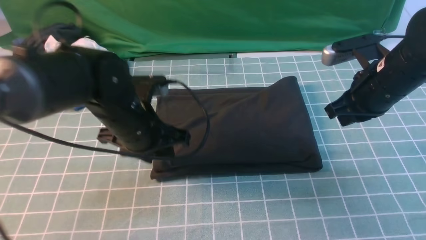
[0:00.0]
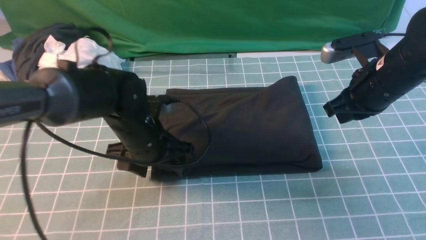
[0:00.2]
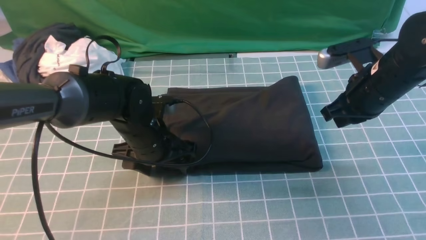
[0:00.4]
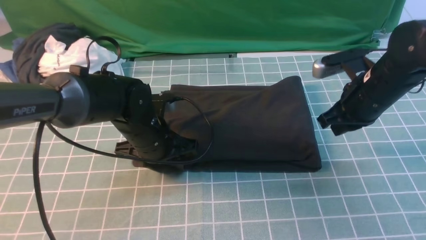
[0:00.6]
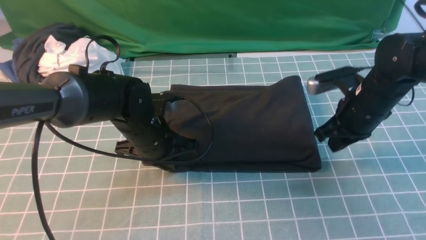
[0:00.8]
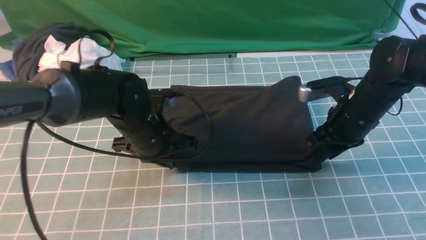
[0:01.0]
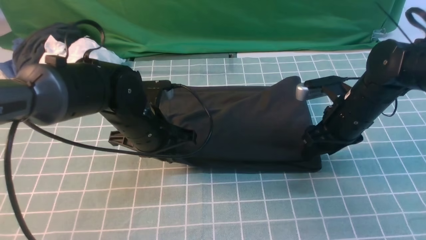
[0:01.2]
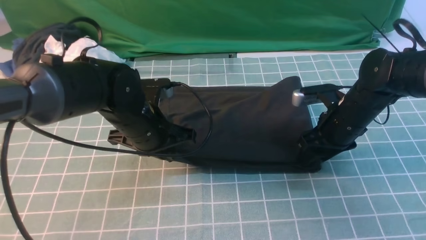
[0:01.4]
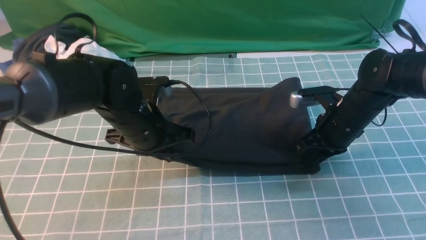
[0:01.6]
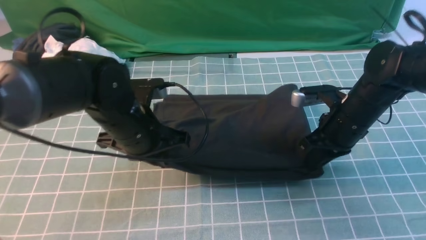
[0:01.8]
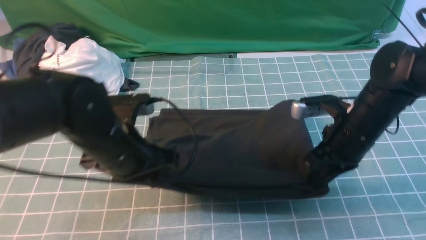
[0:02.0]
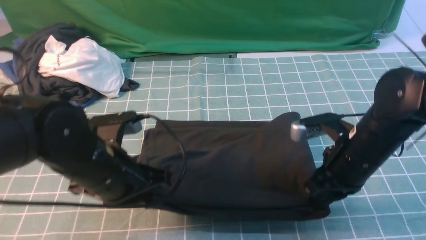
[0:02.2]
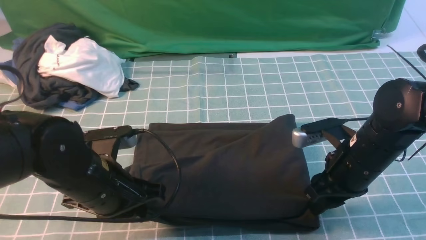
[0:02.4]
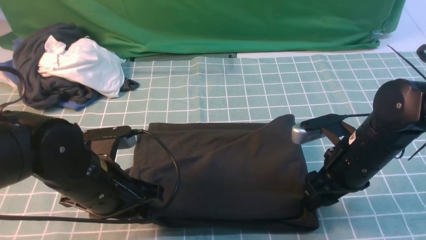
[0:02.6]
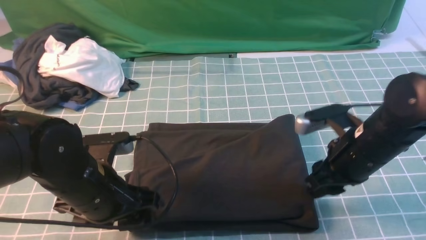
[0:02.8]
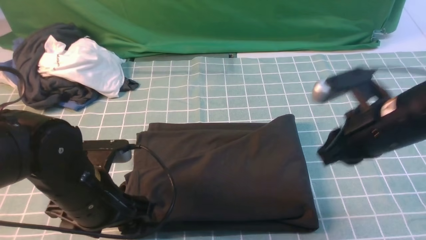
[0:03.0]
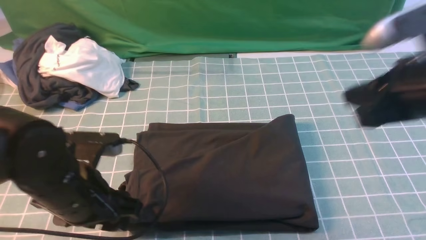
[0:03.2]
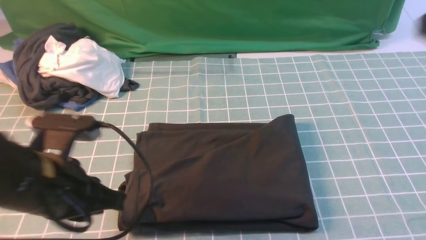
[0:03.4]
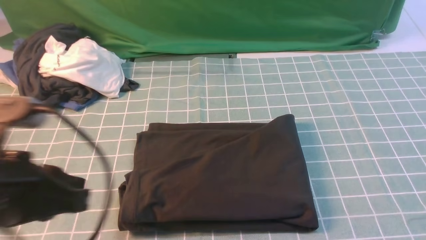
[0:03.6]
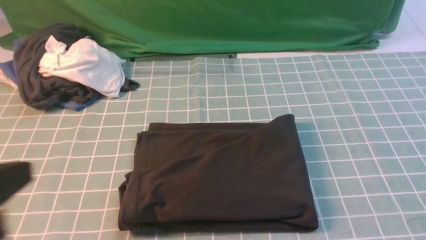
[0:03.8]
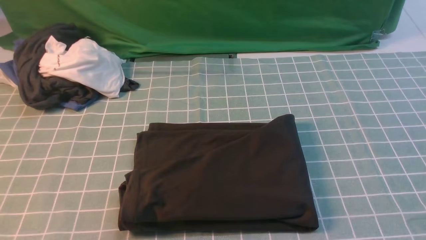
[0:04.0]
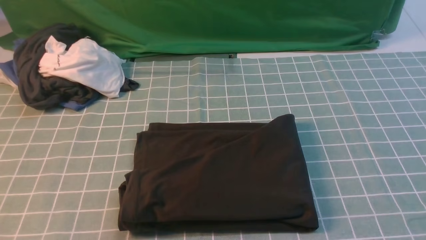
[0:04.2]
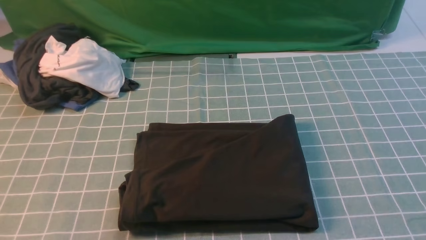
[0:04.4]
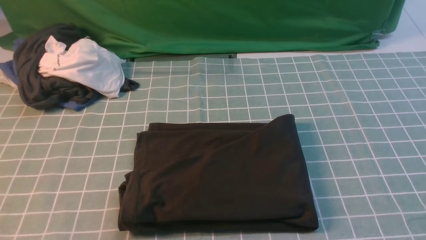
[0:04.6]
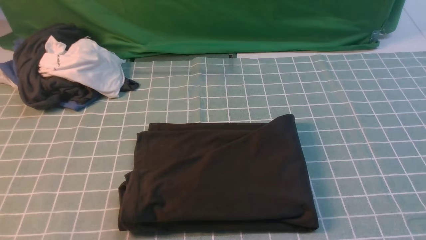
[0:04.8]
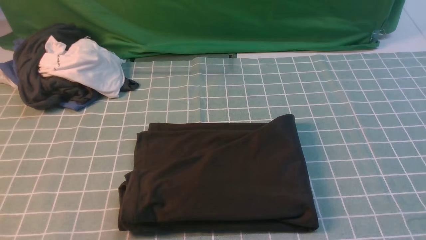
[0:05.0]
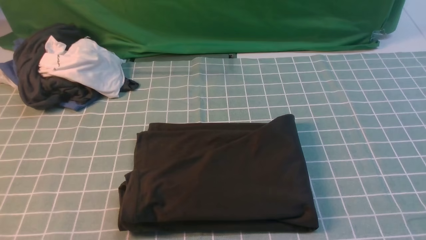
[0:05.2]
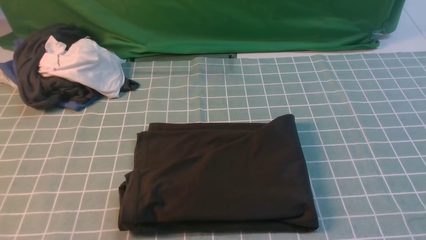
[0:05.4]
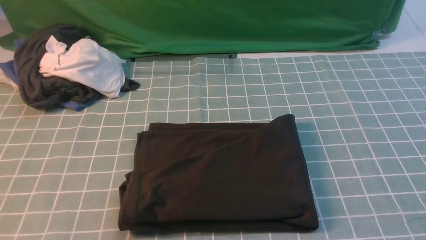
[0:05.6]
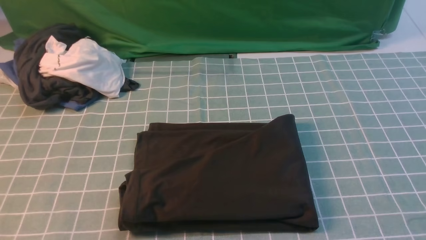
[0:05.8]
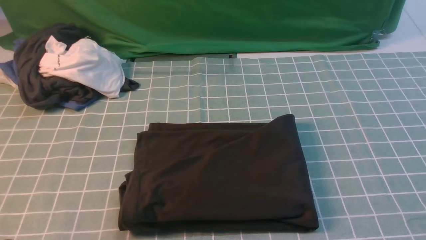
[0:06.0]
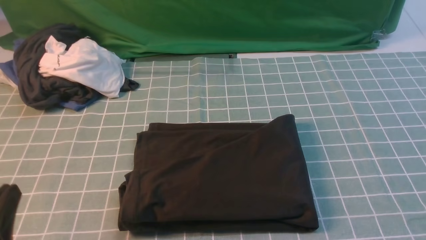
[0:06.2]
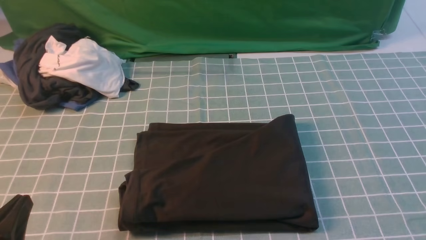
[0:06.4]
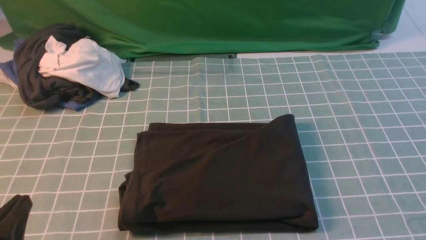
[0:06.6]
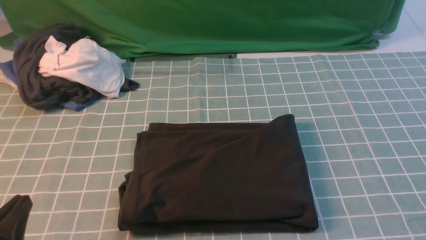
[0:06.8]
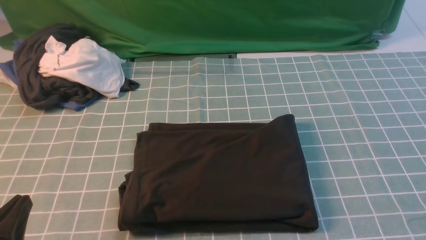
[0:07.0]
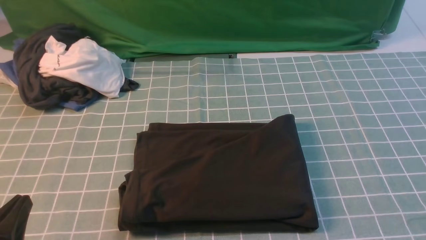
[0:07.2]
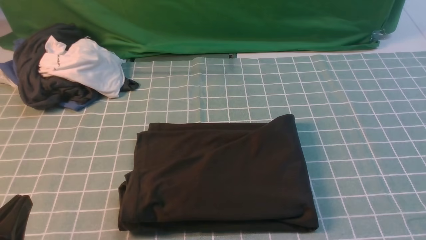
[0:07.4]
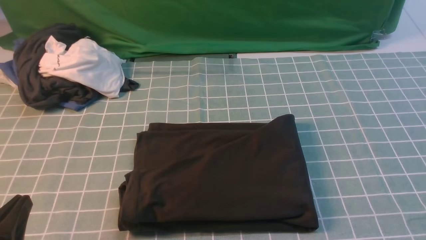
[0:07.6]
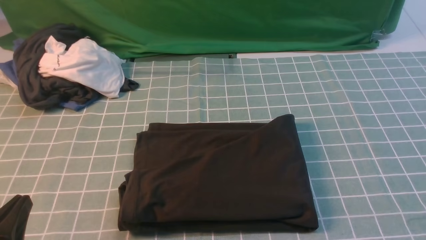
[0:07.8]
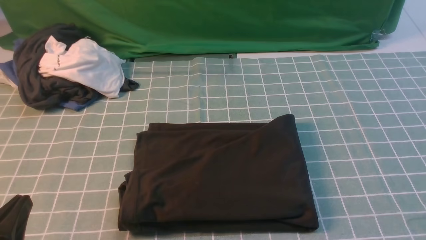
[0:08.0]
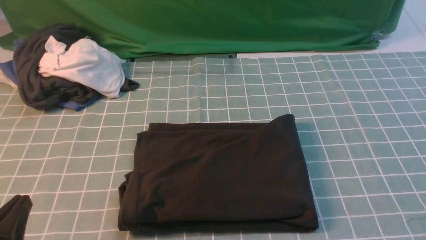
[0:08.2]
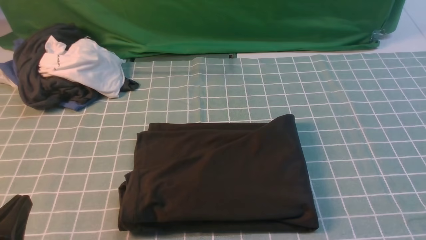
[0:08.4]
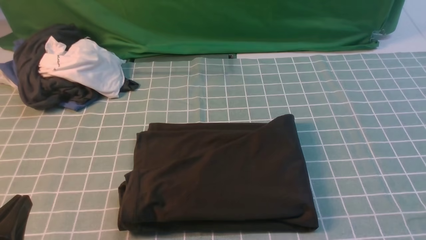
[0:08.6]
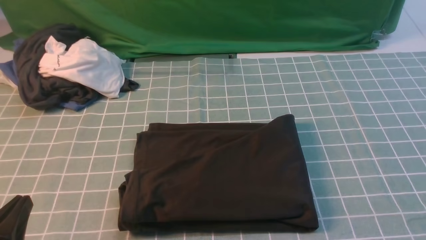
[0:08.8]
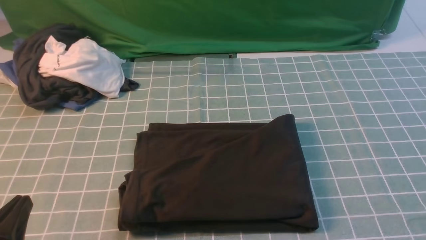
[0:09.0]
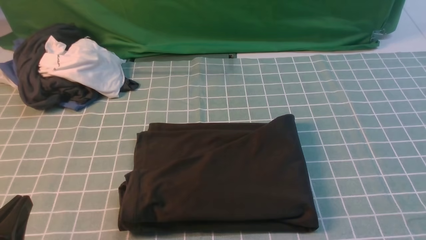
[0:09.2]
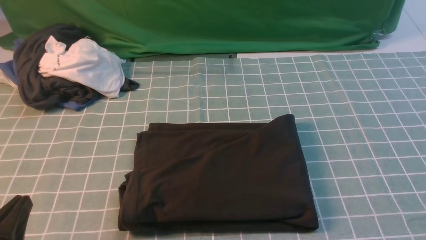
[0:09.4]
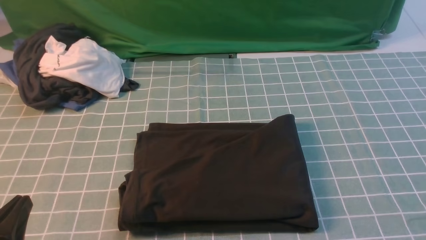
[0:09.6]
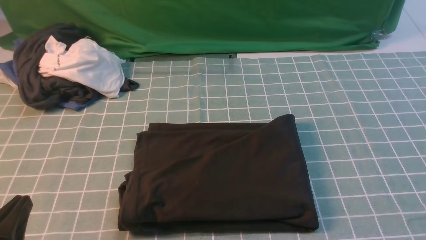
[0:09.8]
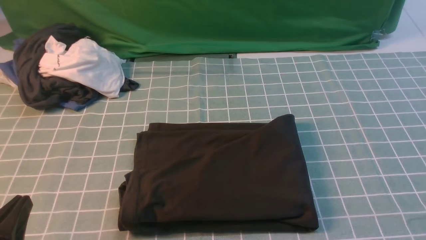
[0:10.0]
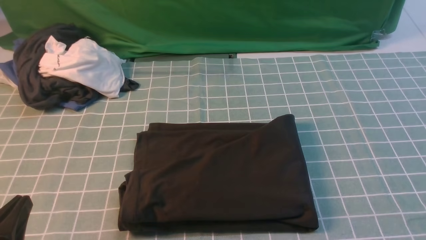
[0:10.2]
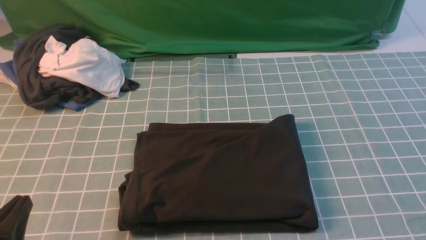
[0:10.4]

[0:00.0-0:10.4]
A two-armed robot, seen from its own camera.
0:00.0 to 0:01.4: The right gripper heads downward, covering approximately 10 cm, and opens. Meanwhile the left gripper closes up.
0:01.4 to 0:03.0: The left gripper moves backward, approximately 10 cm, and opens up, while the right gripper is displaced upward and backward by roughly 15 cm, and closes its fingers.
0:03.0 to 0:04.4: The right gripper moves backward, to the right and upward, roughly 30 cm. Meanwhile the left gripper is displaced backward, upward and to the left by about 25 cm, and closes its fingers.
0:06.0 to 0:07.4: The left gripper is displaced downward by roughly 5 cm.
0:09.0 to 0:10.4: Neither gripper changes place.

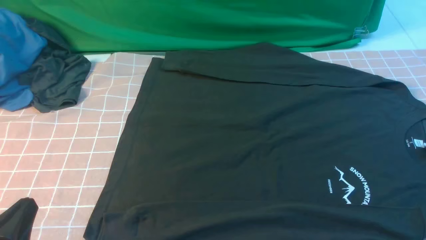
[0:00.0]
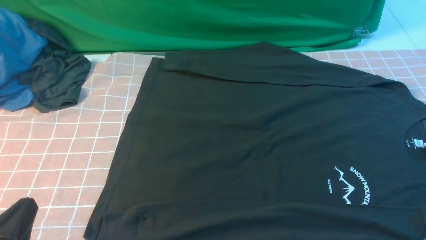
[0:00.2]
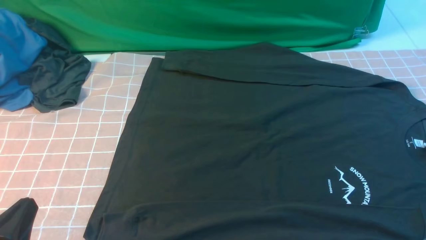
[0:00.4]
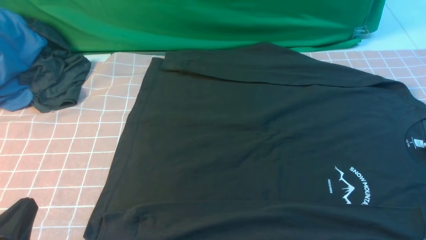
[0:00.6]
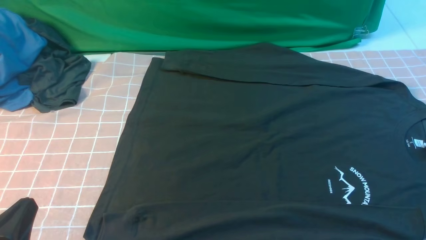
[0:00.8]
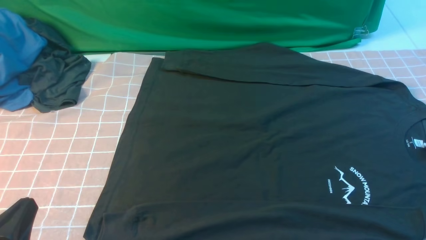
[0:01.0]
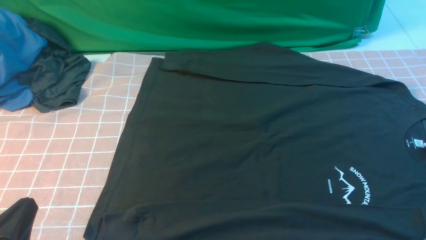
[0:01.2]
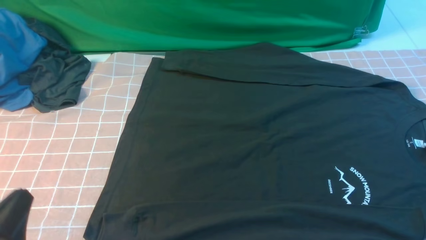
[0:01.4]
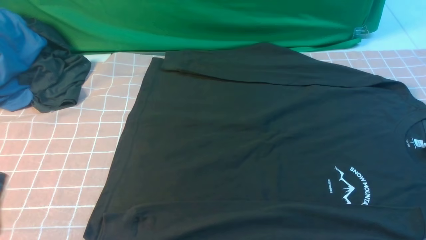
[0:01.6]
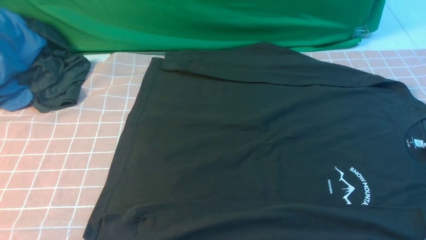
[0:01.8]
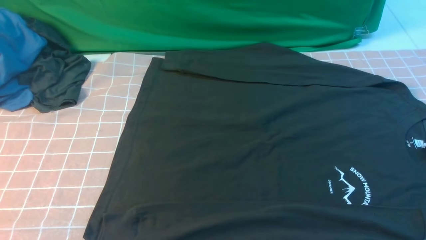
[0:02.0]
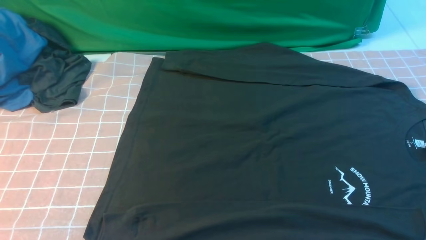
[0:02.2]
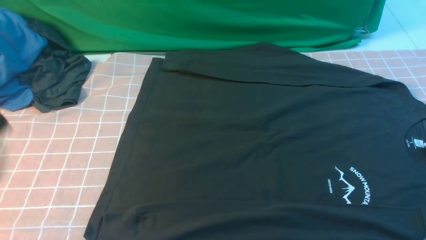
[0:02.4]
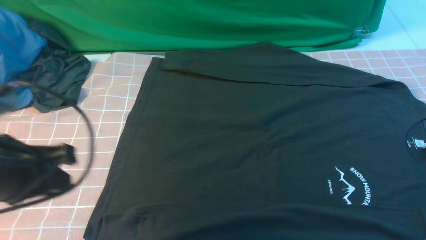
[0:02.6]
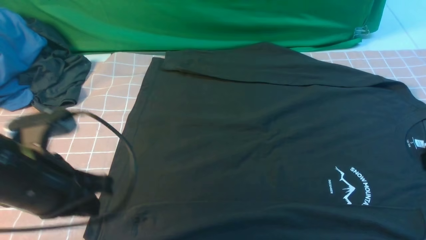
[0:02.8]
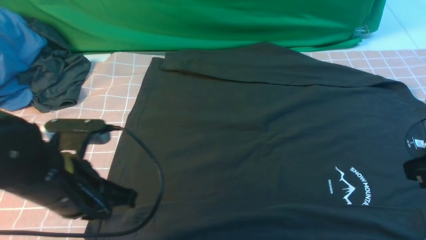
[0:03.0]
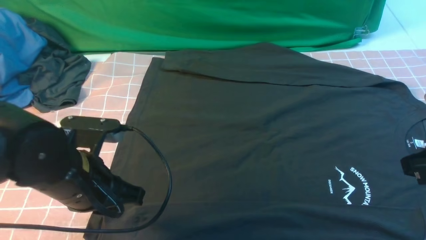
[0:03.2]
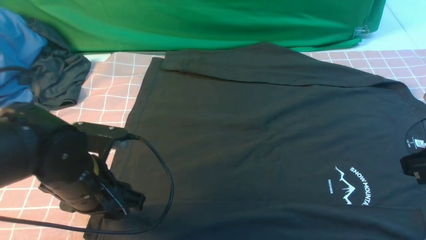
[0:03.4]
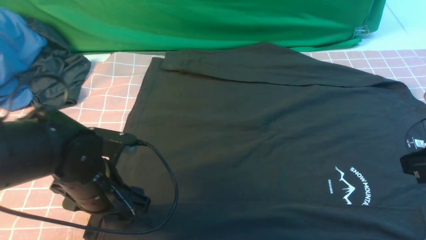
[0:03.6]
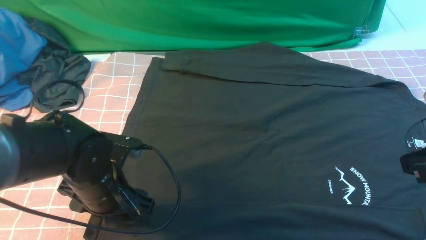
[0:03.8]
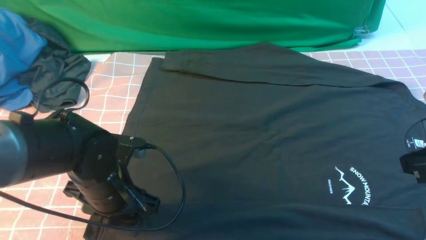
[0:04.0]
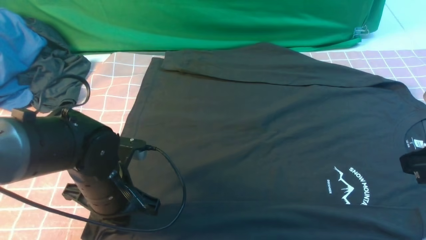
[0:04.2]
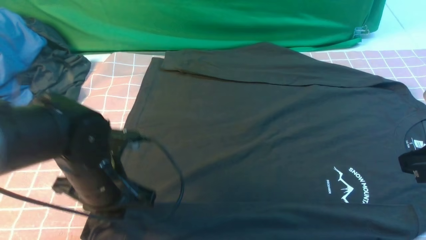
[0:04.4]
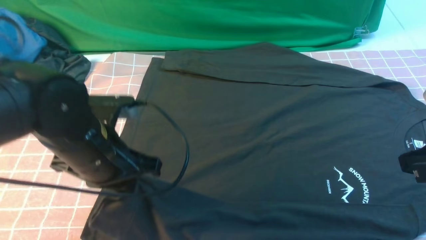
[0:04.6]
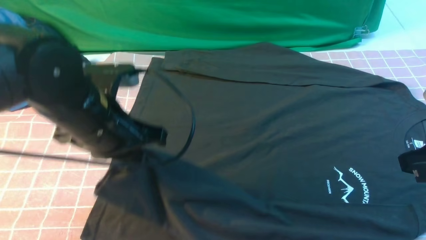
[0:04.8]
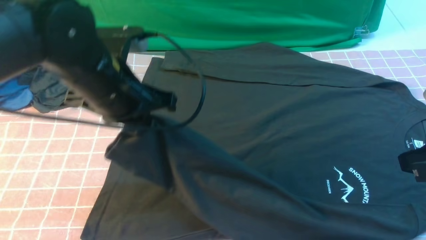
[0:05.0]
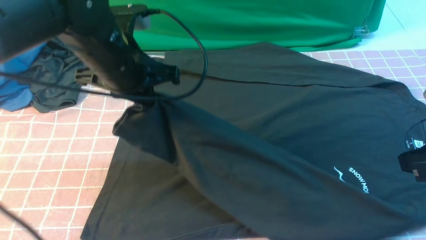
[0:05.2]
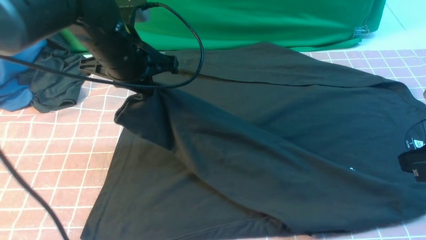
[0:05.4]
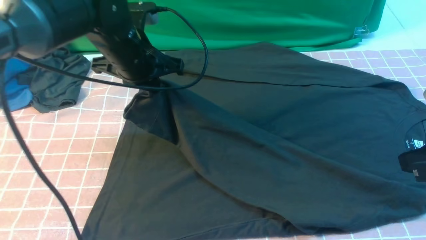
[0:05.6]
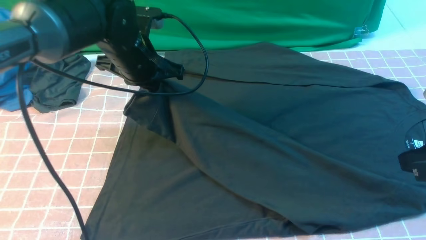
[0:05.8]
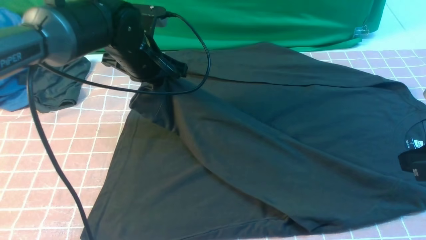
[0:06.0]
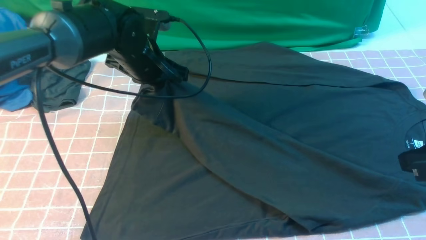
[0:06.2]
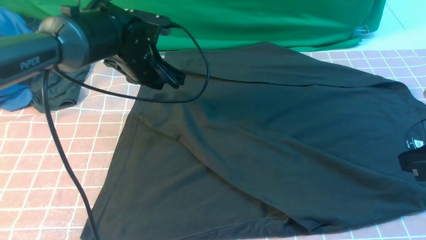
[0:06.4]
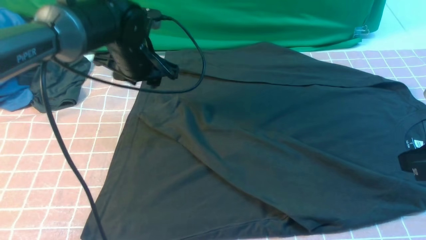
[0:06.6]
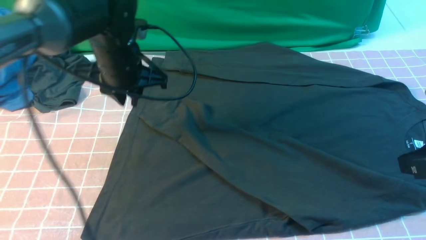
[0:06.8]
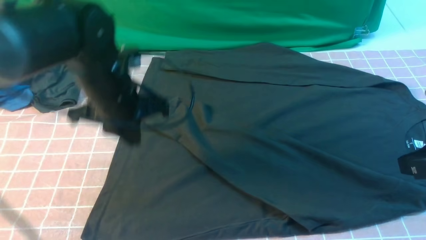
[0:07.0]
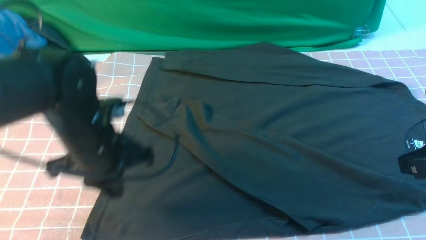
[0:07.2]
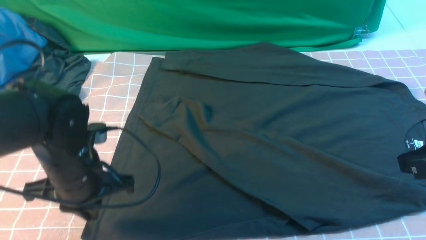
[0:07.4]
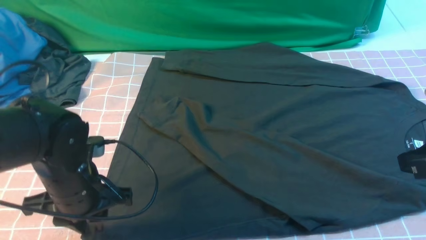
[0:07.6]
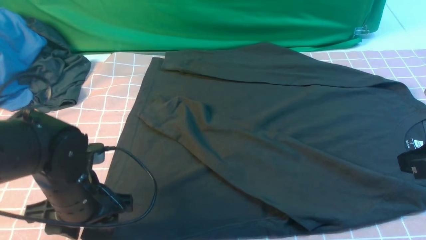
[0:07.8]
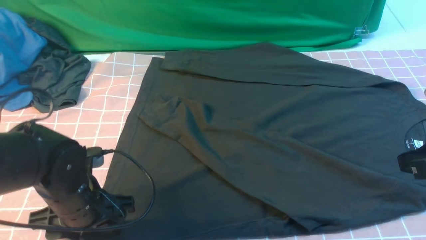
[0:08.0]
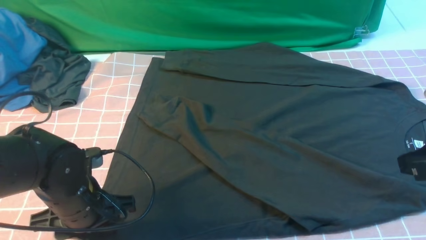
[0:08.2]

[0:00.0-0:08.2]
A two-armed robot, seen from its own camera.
Step, 0:00.0 to 0:04.0: use the left arm to clamp the cuff closest to it.
Step, 0:04.2 to 0:06.4: use the left arm to drag and place the cuff at the centered position on the left edge of the fabric.
0:01.6 to 0:03.2: The left gripper is displaced forward and to the right by about 15 cm, and opens. The right gripper moves forward and upward, some 15 cm, and closes.
0:03.2 to 0:05.0: The left gripper travels forward and upward by approximately 10 cm, and closes.
0:05.0 to 0:06.6: The left gripper travels forward and downward by some 10 cm, and opens its fingers.
0:06.6 to 0:08.2: The left gripper shifts roughly 20 cm backward and downward, and closes, then opens again.
